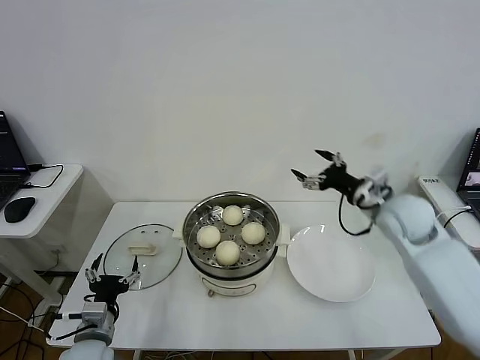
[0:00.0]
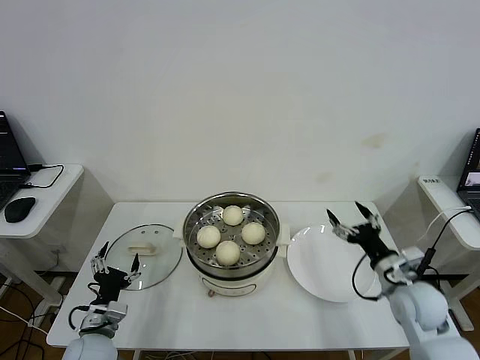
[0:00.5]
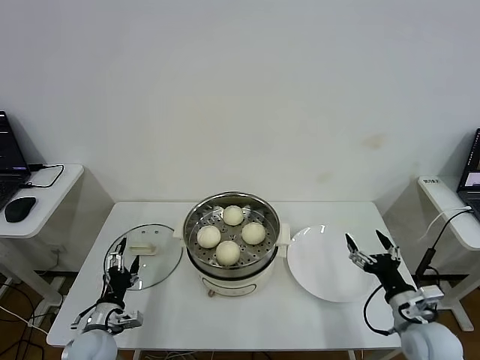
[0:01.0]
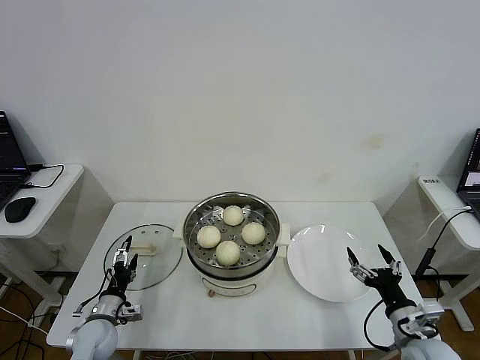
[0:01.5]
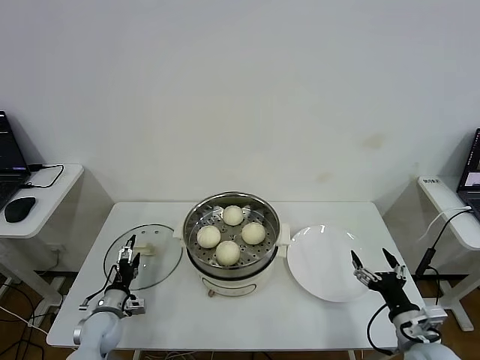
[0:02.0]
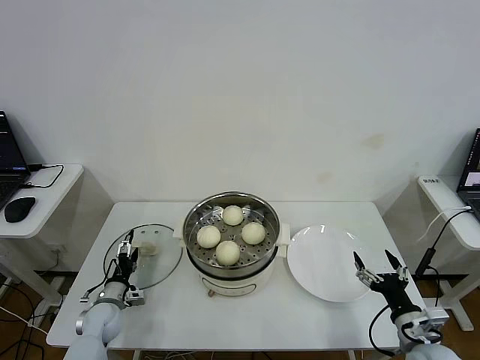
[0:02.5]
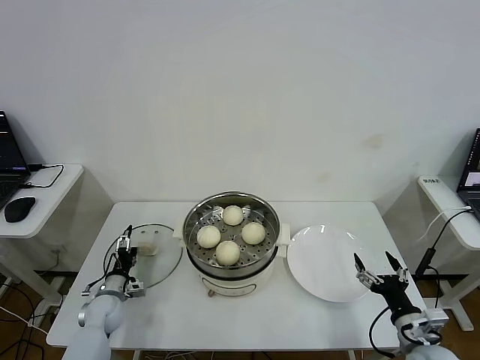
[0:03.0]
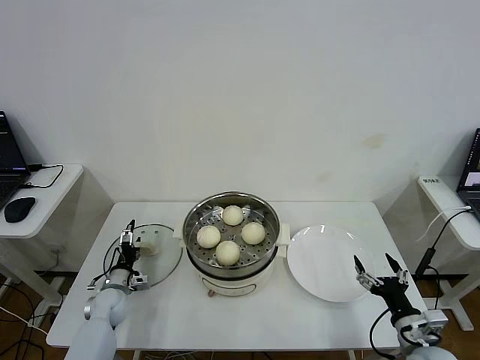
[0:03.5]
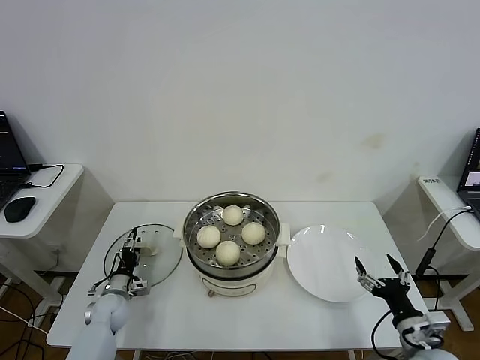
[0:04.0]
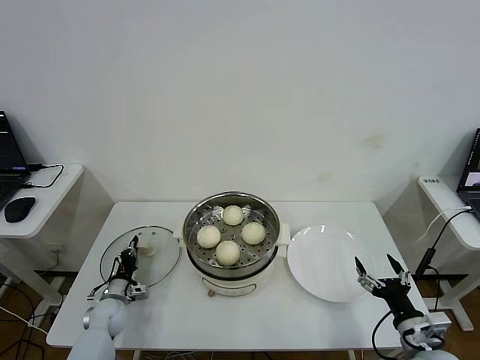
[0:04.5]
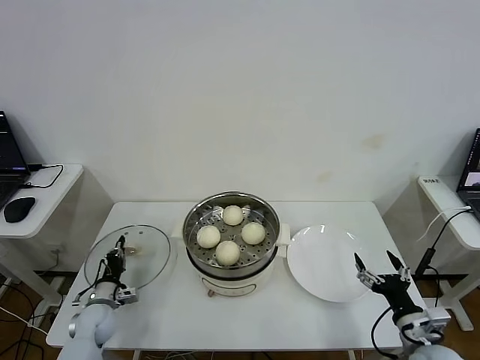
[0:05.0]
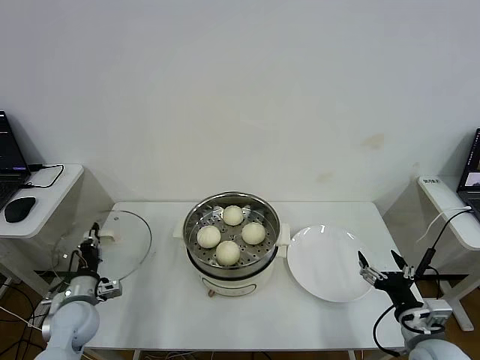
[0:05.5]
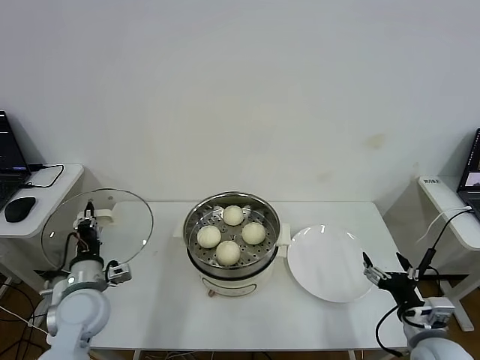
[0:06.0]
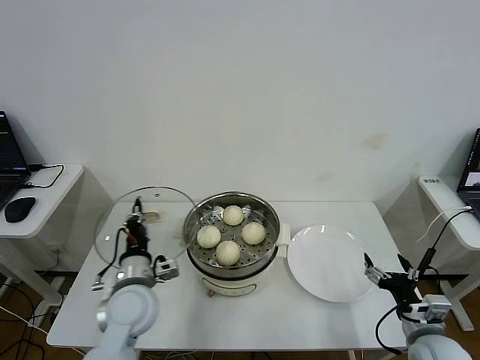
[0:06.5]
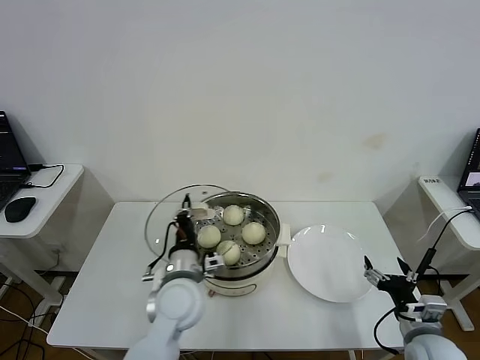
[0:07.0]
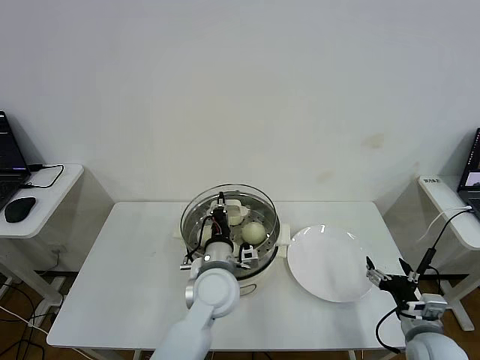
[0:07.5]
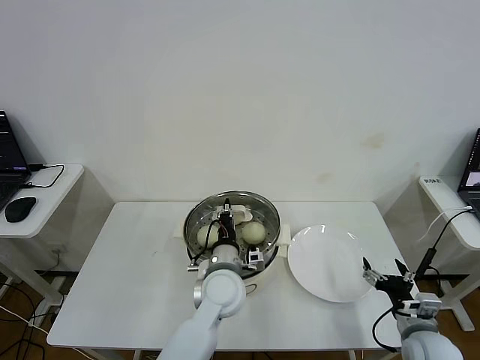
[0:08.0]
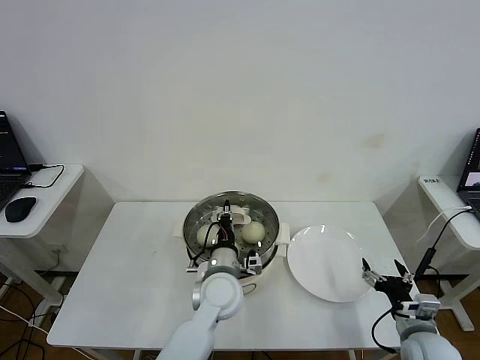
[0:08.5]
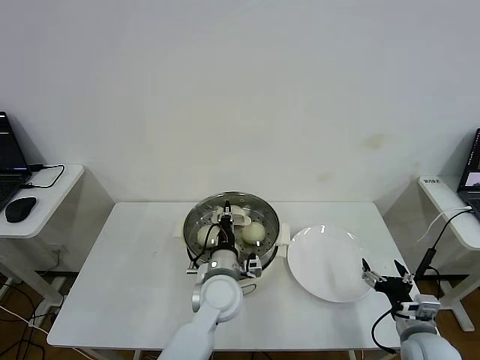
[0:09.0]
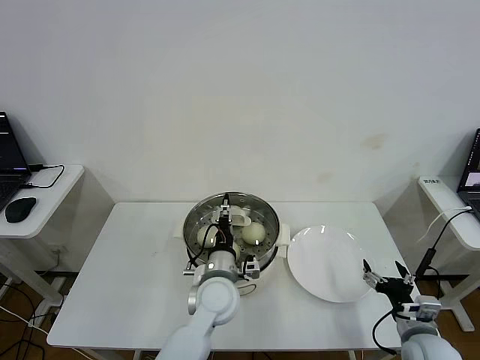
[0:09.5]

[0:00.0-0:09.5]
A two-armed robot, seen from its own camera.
Step, 0:00.0 to 0:04.5: Grasp the pot lid with left gripper.
Step, 0:05.0 to 0:09.5: Place the pot lid on the steamer with left gripper.
0:00.0 to 0:02.0: The right gripper goes approximately 30 cm backward and downward, while the left gripper is displaced downward and forward by about 15 cm.
0:02.0 to 0:04.0: The left gripper shifts about 5 cm forward, and closes its fingers.
0:04.0 to 0:05.5: The left gripper shifts about 15 cm upward and backward, and closes up.
0:05.5 to 0:07.5: The left gripper moves to the right, some 30 cm.
0:07.5 to 0:09.5: The left gripper opens.

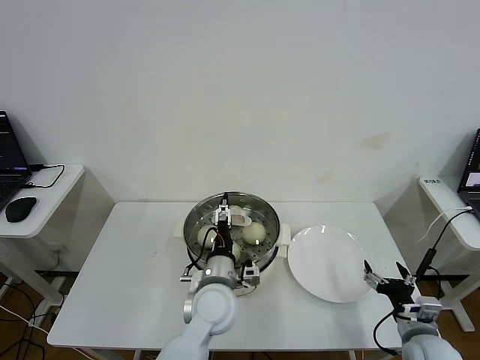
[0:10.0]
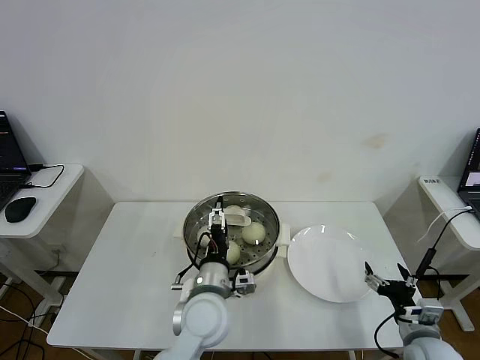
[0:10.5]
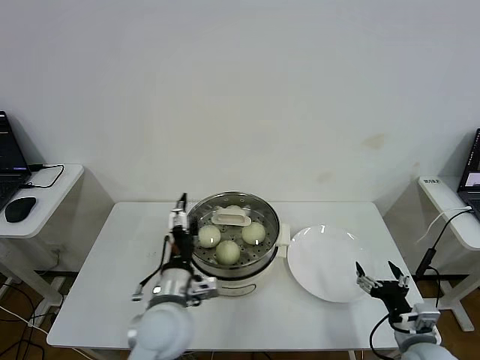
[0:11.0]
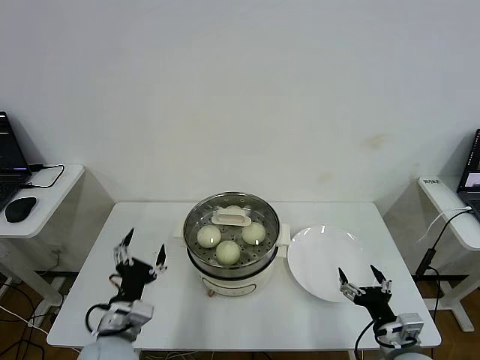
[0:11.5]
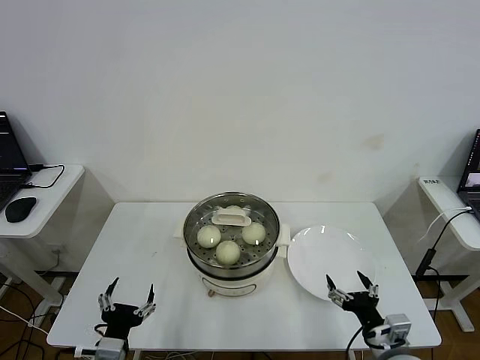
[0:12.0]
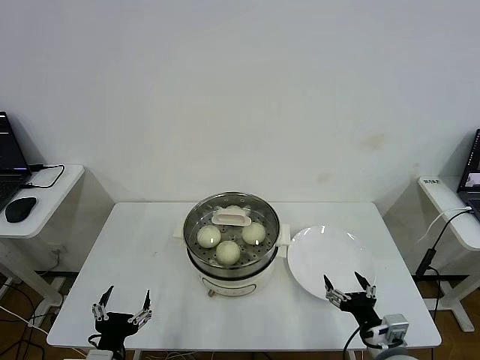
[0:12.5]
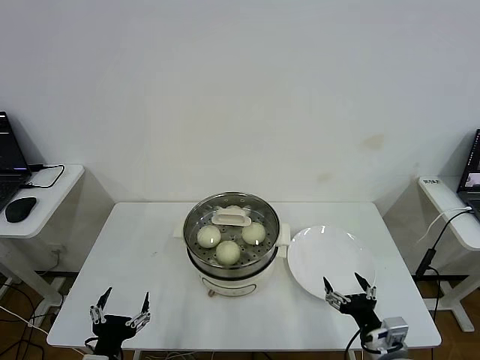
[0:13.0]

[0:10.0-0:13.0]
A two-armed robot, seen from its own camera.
0:10.0 to 0:11.5: The left gripper moves to the left and backward, some 20 cm; the right gripper moves some 5 cm.
0:11.5 to 0:13.0: The left gripper goes some 10 cm backward.

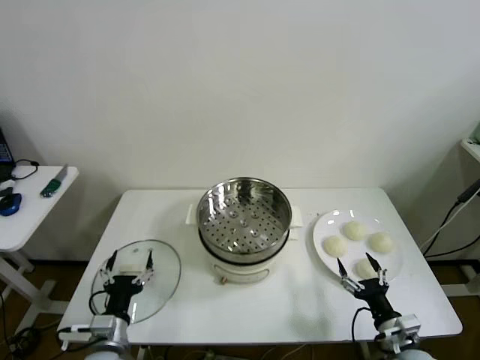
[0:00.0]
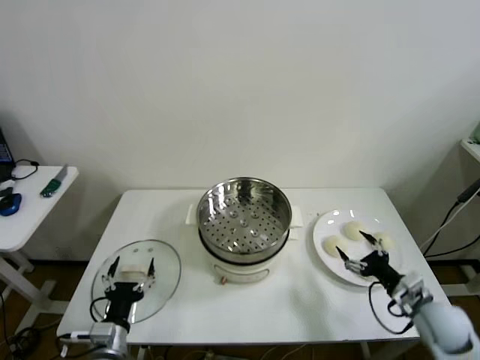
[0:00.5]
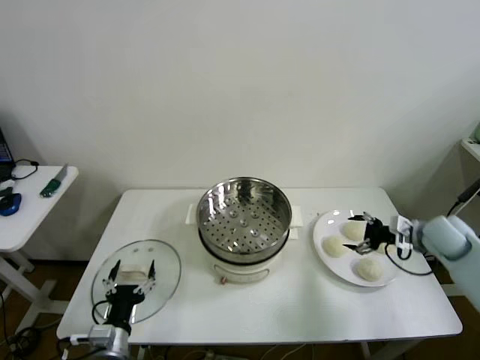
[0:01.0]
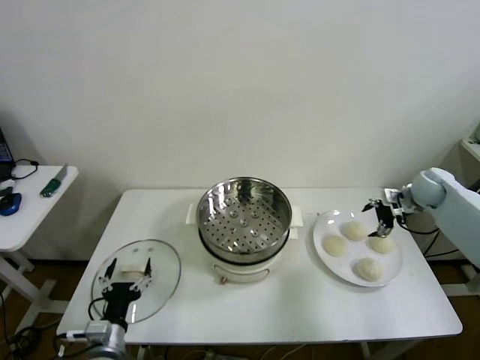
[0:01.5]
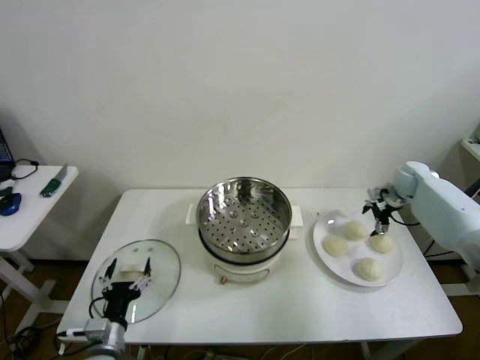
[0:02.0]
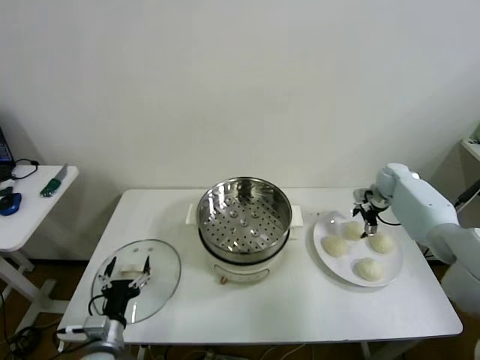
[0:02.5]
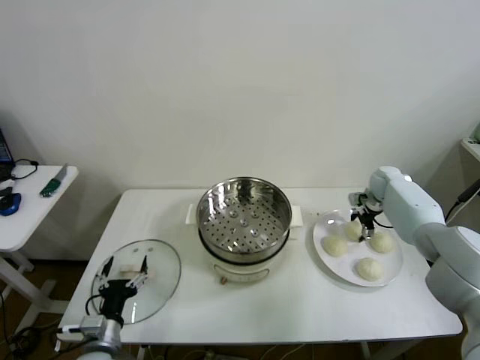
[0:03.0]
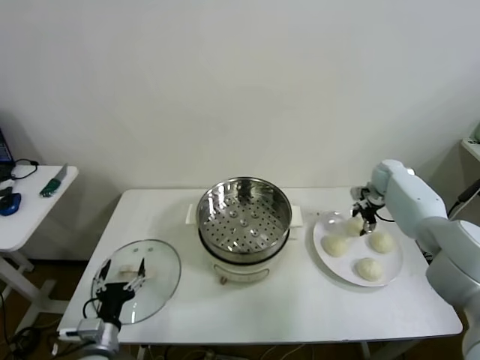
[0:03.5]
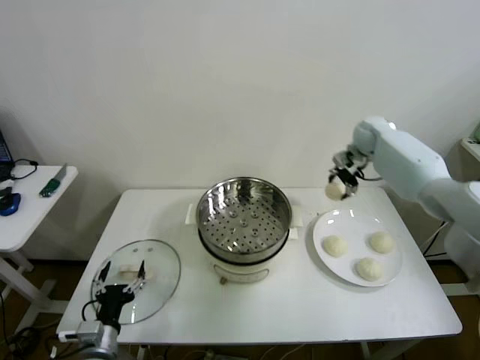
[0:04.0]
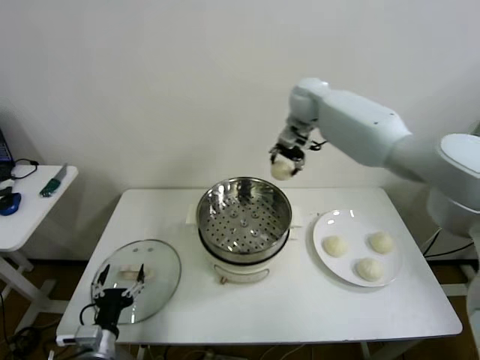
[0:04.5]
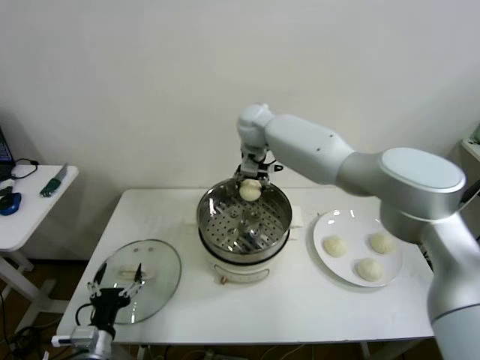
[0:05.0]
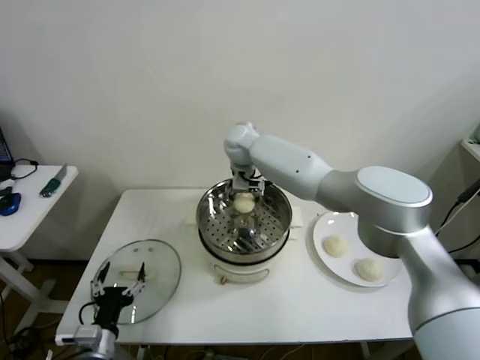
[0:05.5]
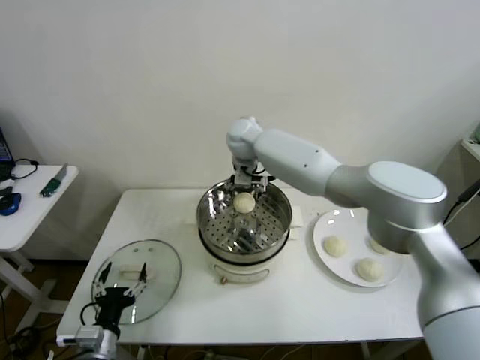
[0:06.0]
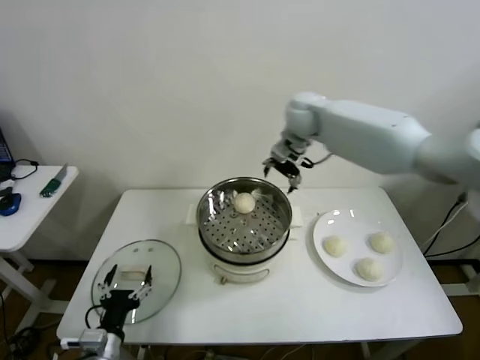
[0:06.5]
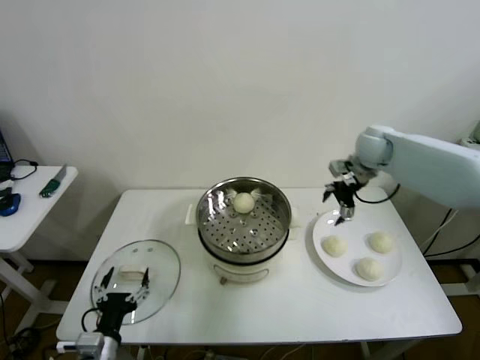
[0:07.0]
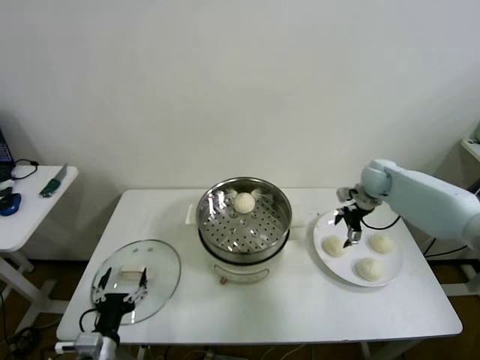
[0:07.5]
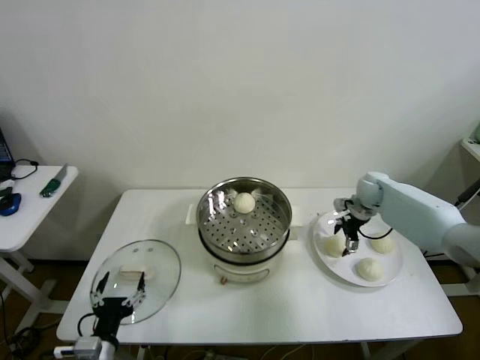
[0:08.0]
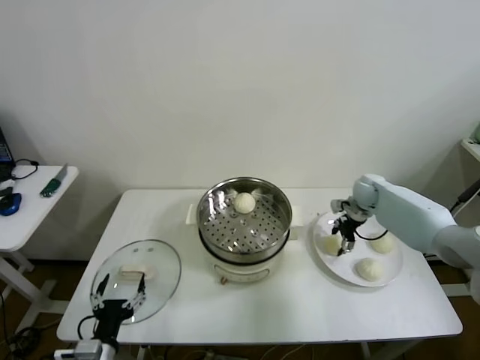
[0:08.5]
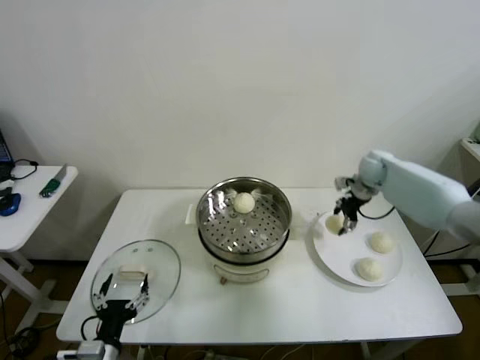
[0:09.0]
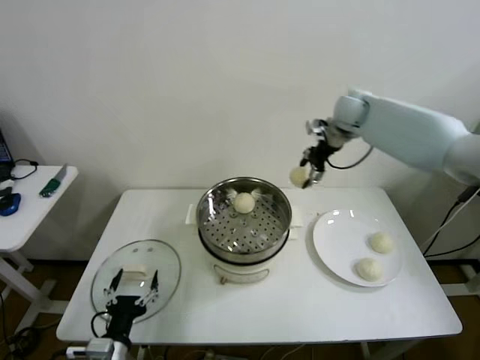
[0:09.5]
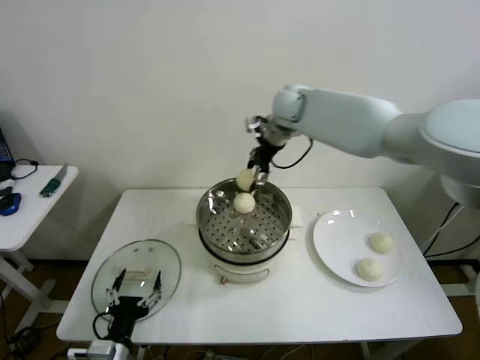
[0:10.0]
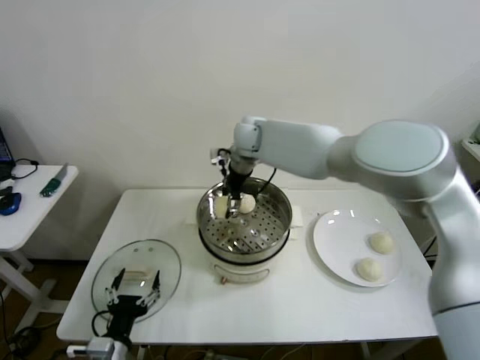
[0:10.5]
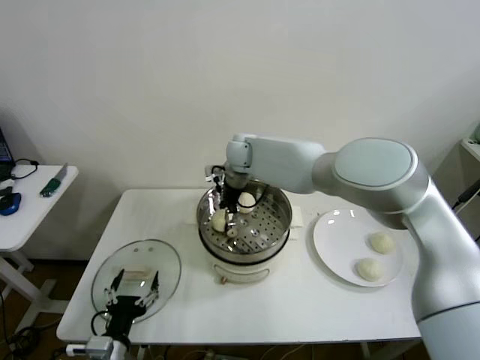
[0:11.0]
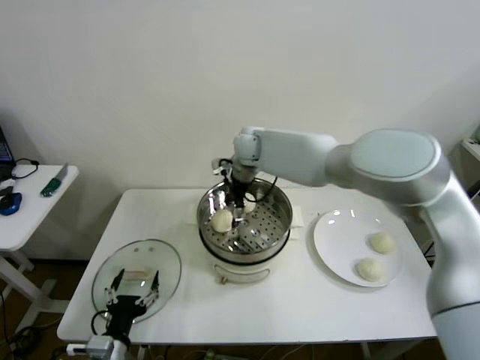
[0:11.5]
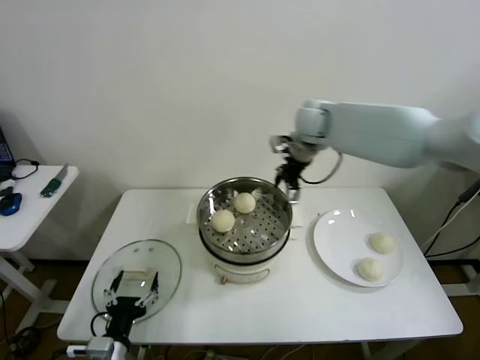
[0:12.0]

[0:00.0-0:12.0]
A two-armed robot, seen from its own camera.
Step, 0:00.0 to 0:03.0: Grasp the baozi in the plate with right gripper.
Step, 0:03.5 to 0:05.5: Place the baozi on the steamer with right gripper.
Step, 0:06.0 to 0:08.0: Grasp the baozi in the plate with right gripper.
Step, 0:08.5 to 0:11.0: Place the baozi on the steamer with right gripper.
0:02.0 to 0:04.0: The right gripper travels to the left, upward and forward by approximately 20 cm, and closes.
0:04.0 to 0:06.0: The right gripper travels to the left by roughly 35 cm, and opens up.
0:06.0 to 0:08.0: The right gripper travels to the right and downward by roughly 40 cm.
0:08.0 to 0:10.0: The right gripper is displaced to the left and upward by some 35 cm, and closes.
0:10.0 to 0:12.0: The right gripper moves about 10 cm to the left and comes back, and opens.

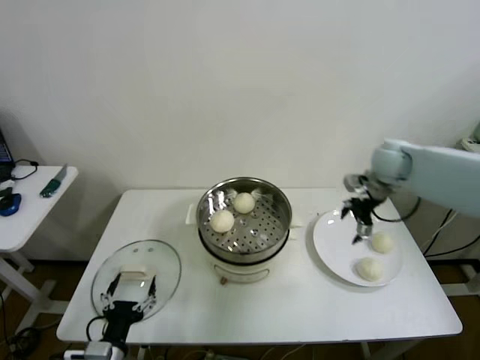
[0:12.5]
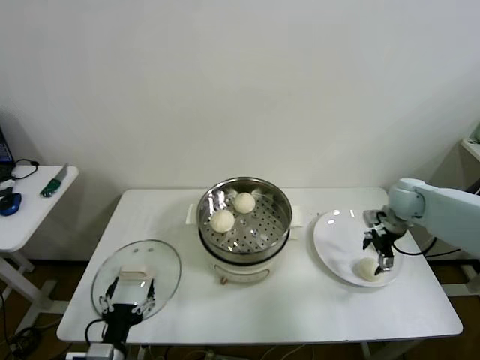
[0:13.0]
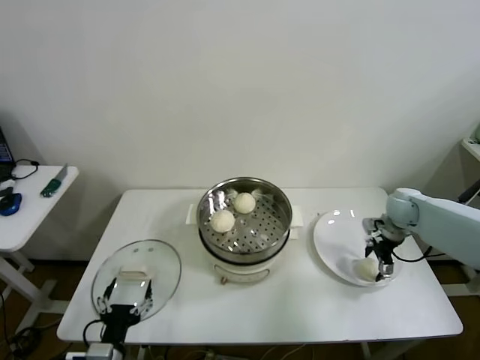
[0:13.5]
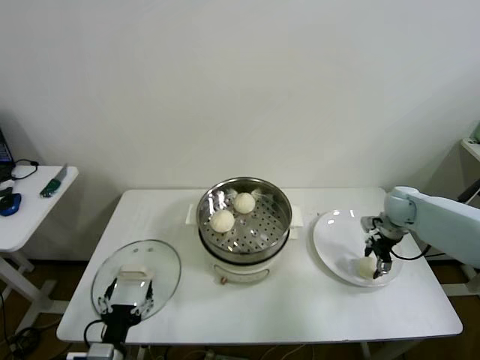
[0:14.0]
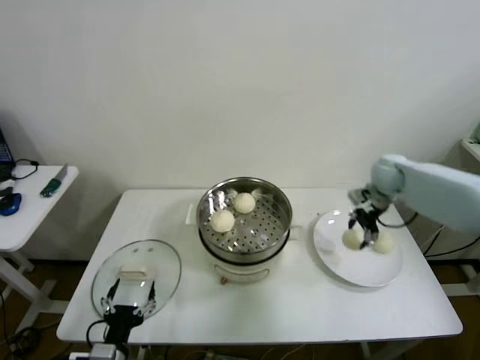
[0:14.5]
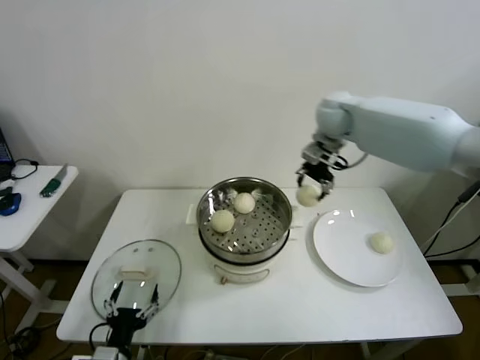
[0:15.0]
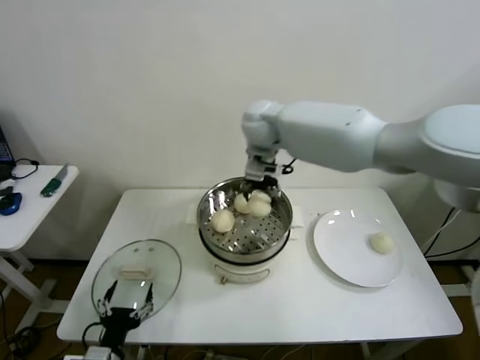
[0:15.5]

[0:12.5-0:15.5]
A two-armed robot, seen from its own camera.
0:12.5 to 0:14.0: The right gripper goes approximately 15 cm downward and to the right, and closes its fingers.
0:14.0 to 0:15.5: The right gripper shifts about 40 cm to the left and upward.
